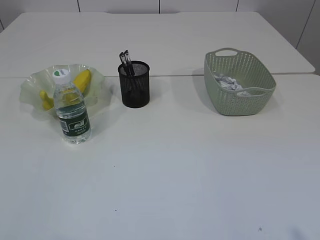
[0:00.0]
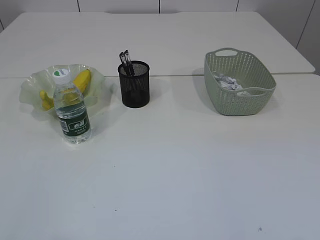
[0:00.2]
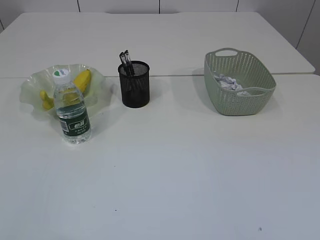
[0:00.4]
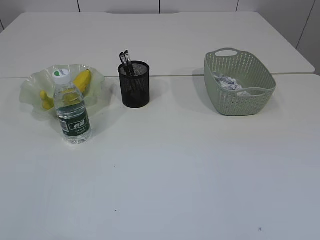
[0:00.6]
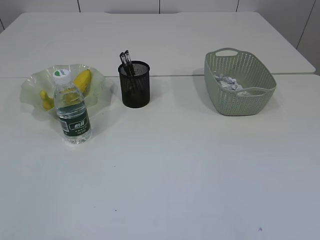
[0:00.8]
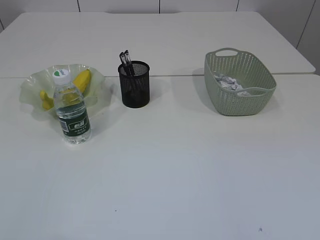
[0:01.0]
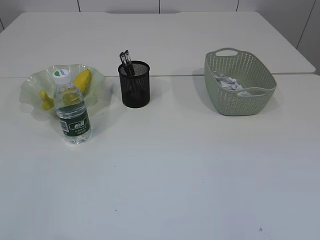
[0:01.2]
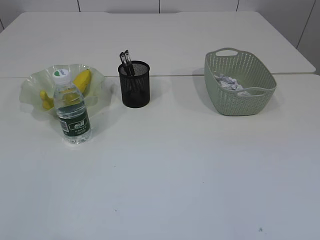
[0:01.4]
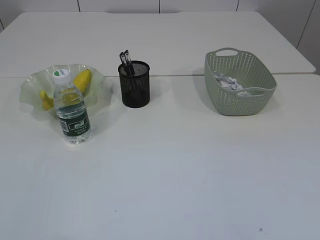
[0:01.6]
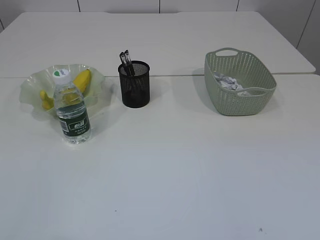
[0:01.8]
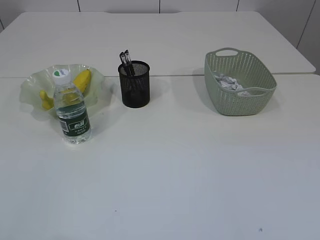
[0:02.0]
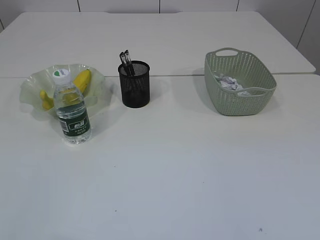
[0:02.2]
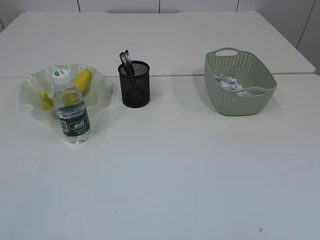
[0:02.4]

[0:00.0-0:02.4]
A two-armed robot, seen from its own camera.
0:01.2 to 0:02.4: The two grippers keep their place.
